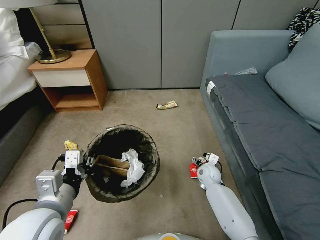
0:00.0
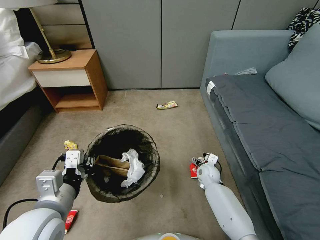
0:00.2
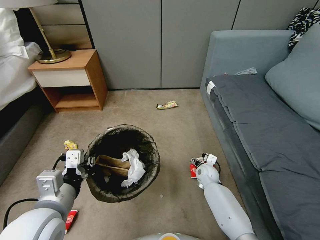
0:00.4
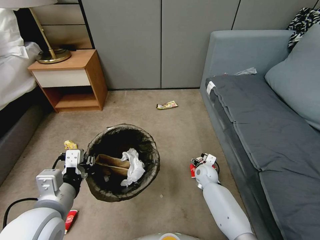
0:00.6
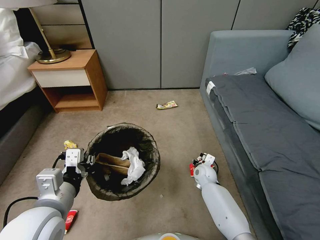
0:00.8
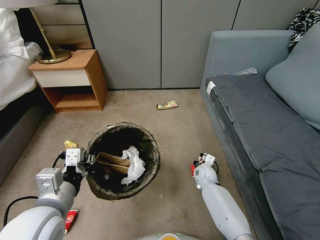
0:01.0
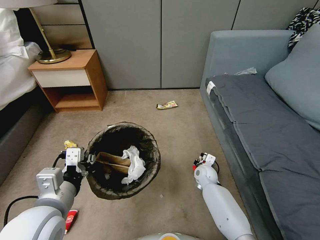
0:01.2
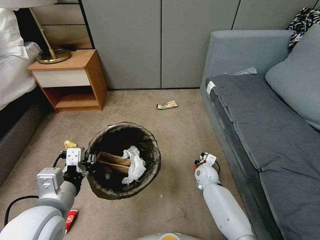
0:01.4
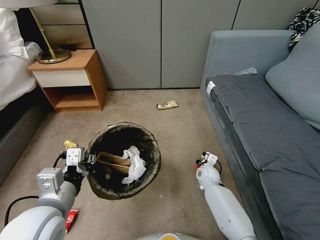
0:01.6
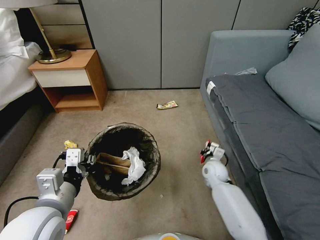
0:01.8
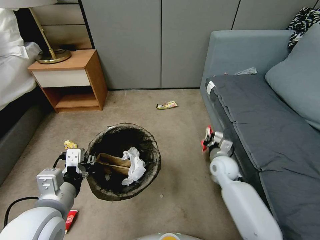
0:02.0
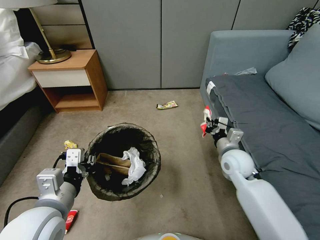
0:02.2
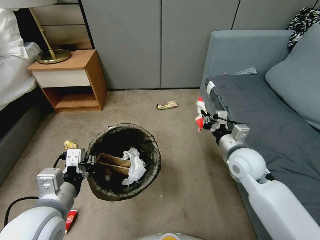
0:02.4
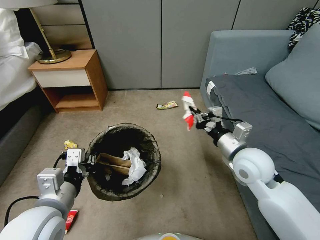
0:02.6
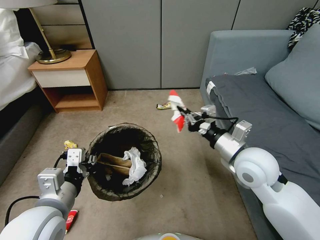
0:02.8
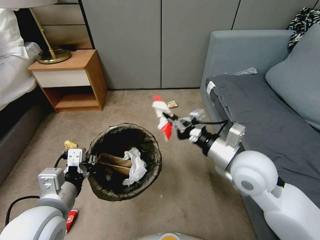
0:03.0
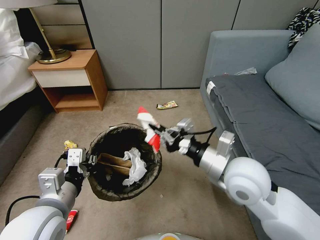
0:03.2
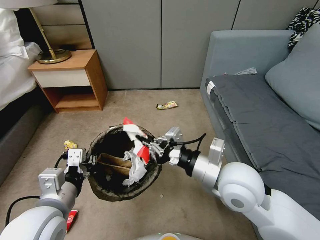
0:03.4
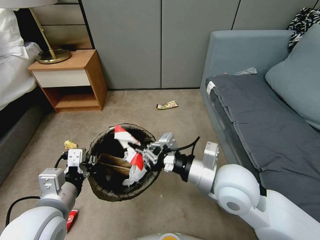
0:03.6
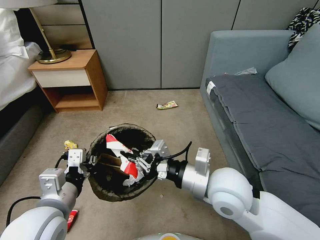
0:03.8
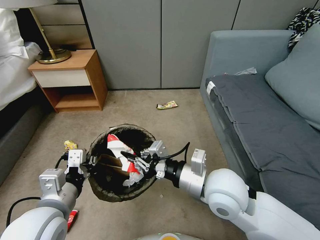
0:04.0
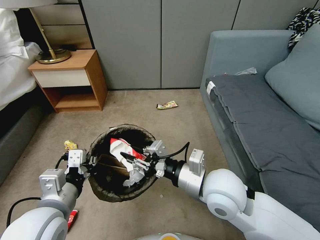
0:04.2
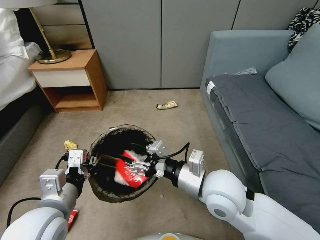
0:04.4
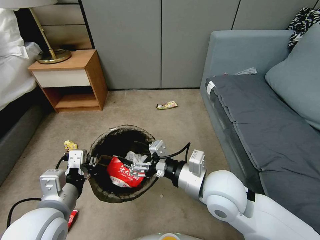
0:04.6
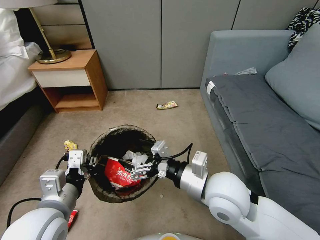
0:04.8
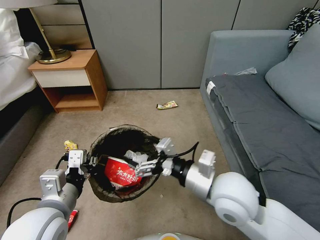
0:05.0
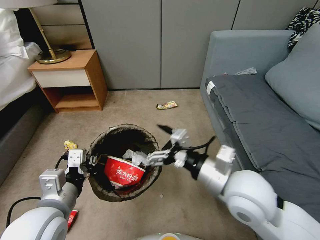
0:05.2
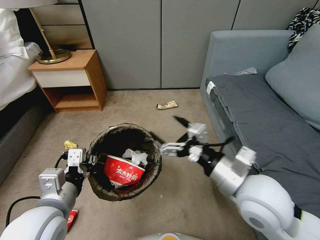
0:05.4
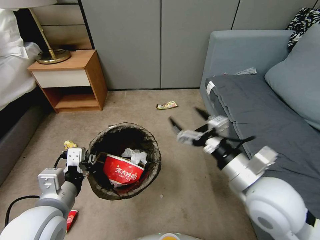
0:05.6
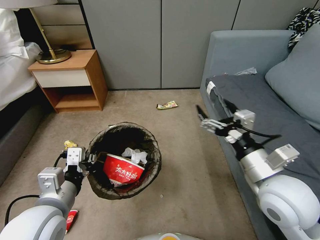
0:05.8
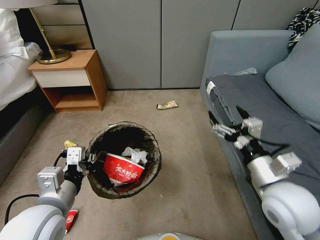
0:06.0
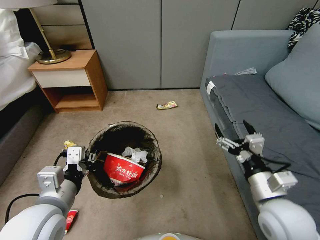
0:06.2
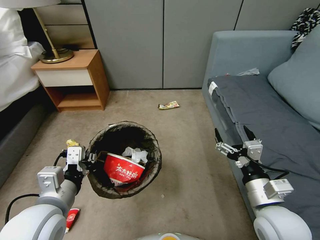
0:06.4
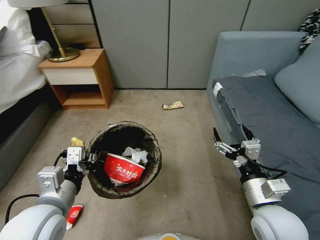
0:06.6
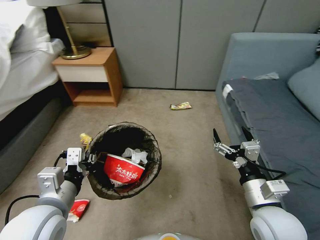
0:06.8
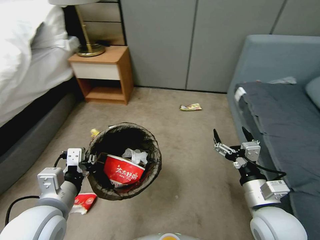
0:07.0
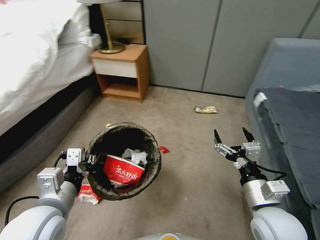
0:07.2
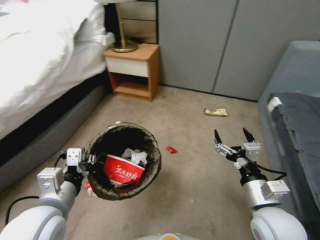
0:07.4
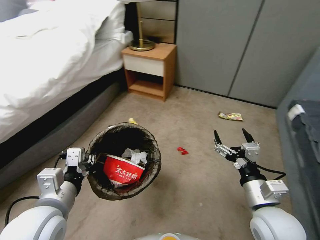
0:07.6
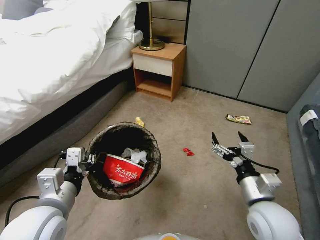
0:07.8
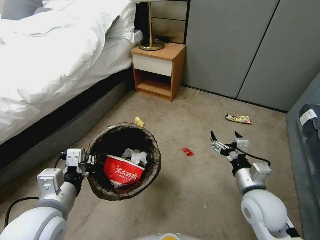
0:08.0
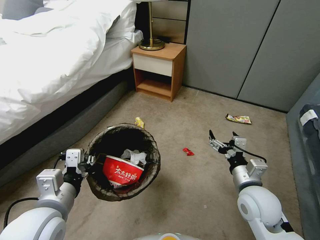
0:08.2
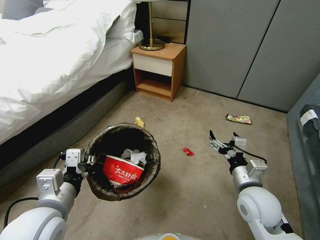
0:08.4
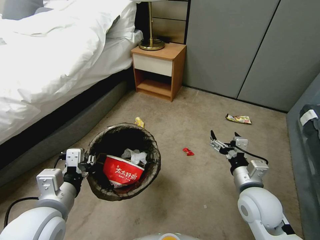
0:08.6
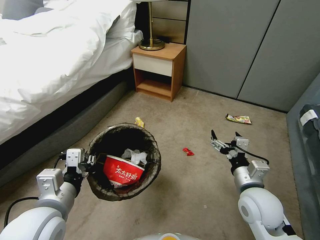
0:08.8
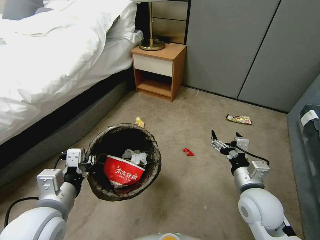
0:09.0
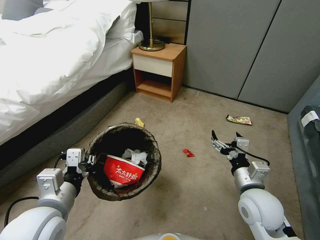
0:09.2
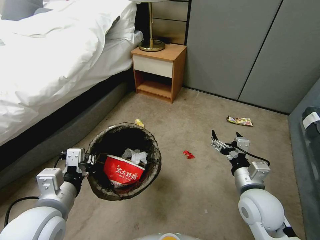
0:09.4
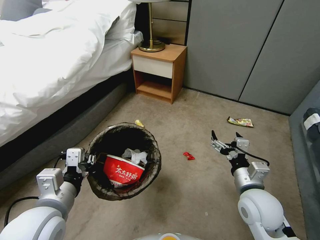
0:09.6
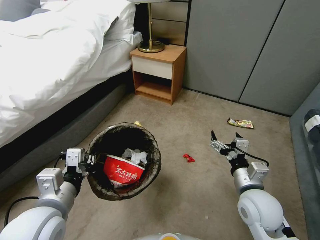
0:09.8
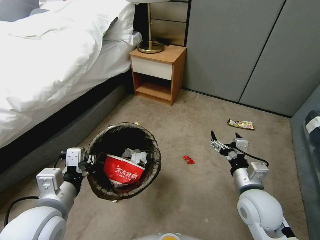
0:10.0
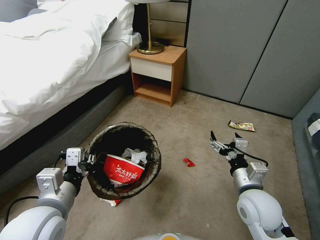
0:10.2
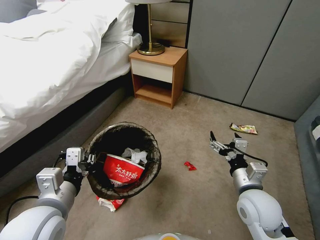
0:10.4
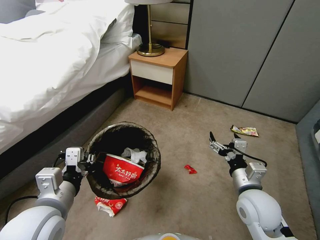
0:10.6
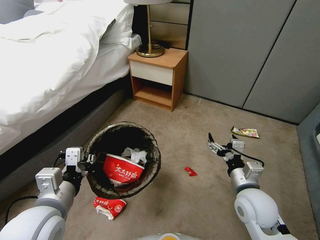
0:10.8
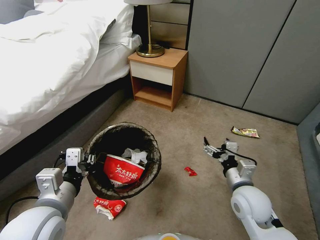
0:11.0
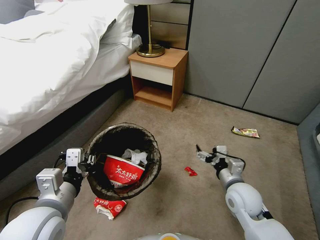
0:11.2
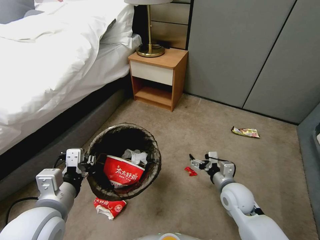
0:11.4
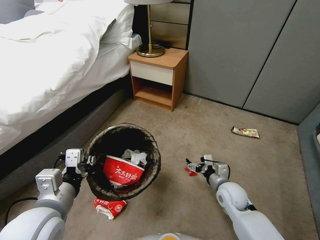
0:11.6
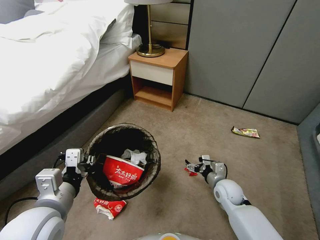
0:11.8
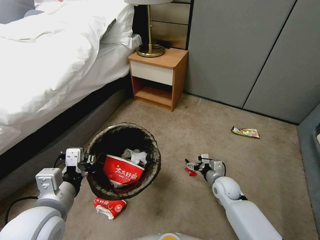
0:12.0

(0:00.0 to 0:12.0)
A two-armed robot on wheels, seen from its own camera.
Task of the whole recording: Pick up the trash bin, then pick up the garbage from the floor and place it into the trash bin.
0:00.0 - 0:01.6: The right gripper closes.
0:01.6 - 0:03.0: The right gripper moves upward, roughly 30 cm.
0:03.0 - 0:04.4: The right gripper heads to the left, covering some 5 cm, and opens its fingers.
0:04.4 - 0:06.0: The right gripper moves to the right, approximately 15 cm, and opens.
0:06.0 - 0:07.6: The right gripper shifts roughly 5 cm downward.
0:07.6 - 0:09.0: The right gripper goes about 5 cm forward.
0:09.0 - 0:10.4: Neither gripper changes place.
0:10.4 - 0:12.0: The right gripper heads downward and forward, covering approximately 20 cm.

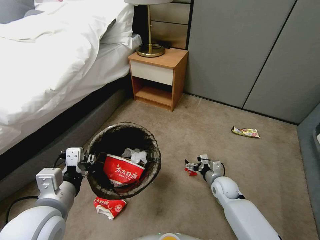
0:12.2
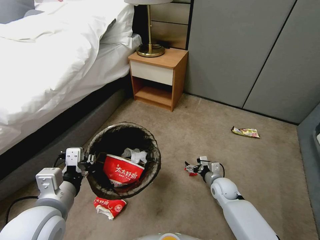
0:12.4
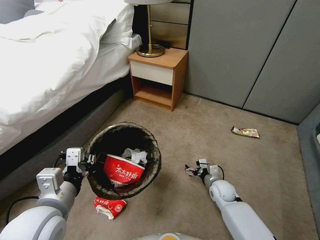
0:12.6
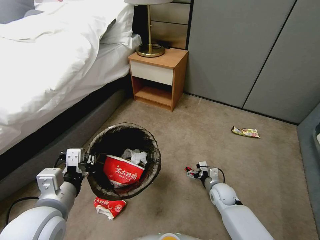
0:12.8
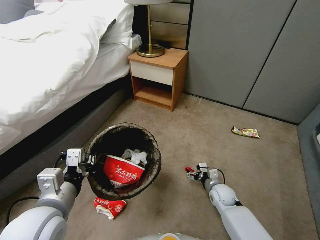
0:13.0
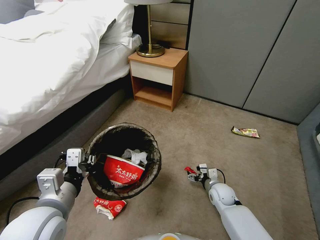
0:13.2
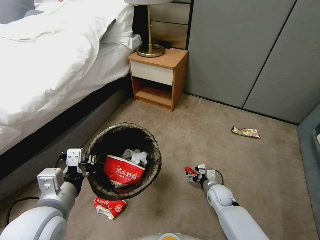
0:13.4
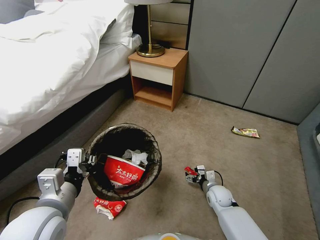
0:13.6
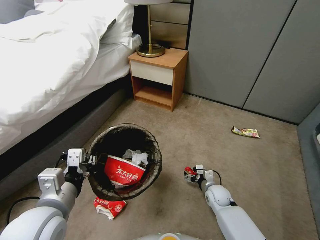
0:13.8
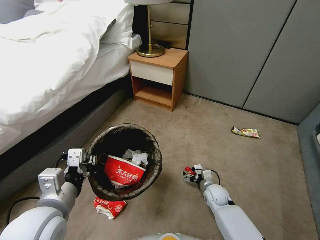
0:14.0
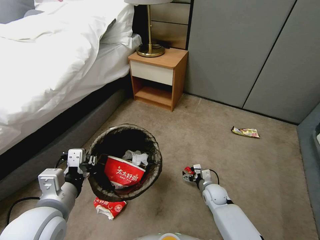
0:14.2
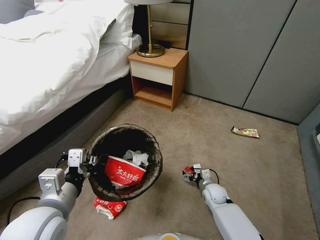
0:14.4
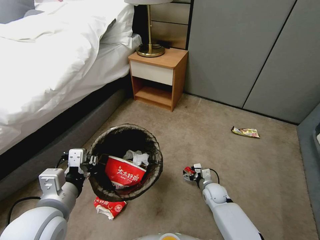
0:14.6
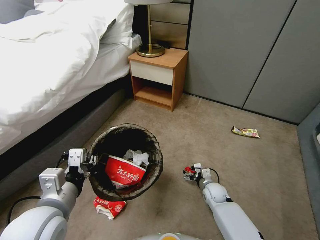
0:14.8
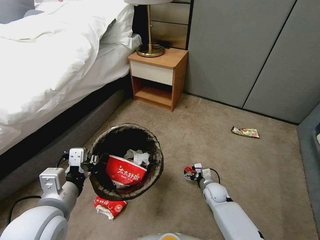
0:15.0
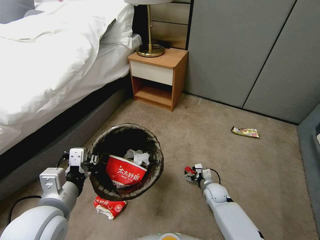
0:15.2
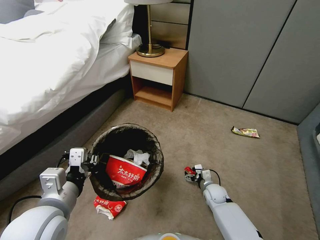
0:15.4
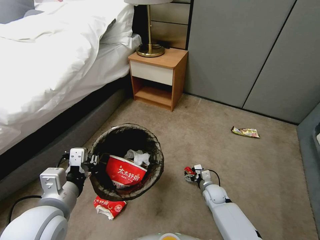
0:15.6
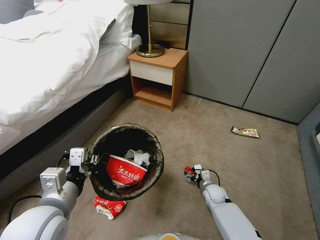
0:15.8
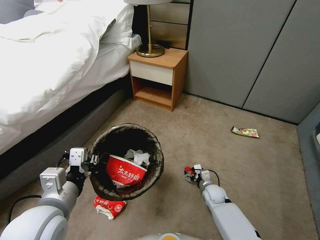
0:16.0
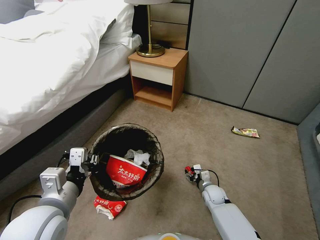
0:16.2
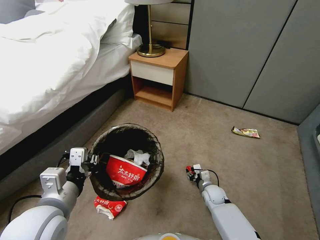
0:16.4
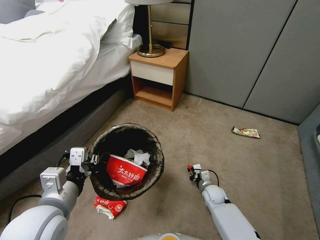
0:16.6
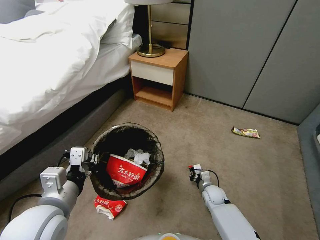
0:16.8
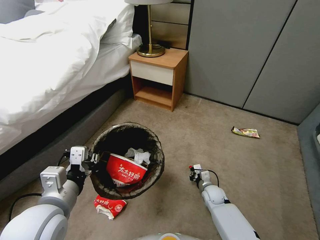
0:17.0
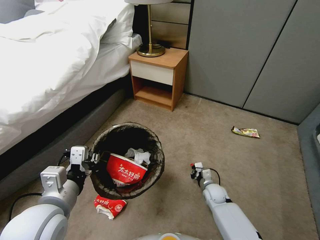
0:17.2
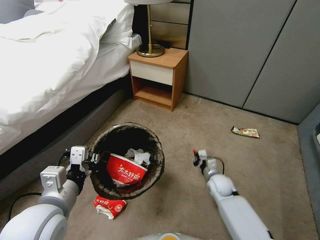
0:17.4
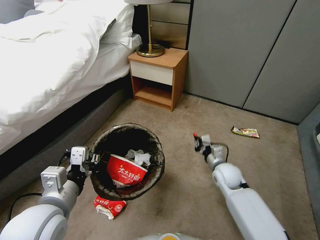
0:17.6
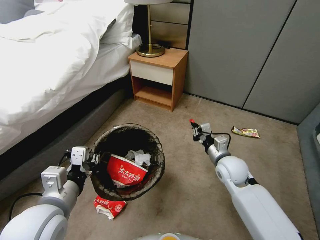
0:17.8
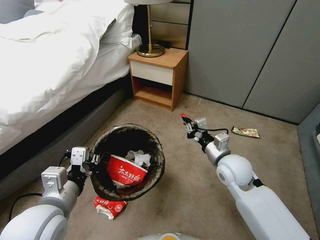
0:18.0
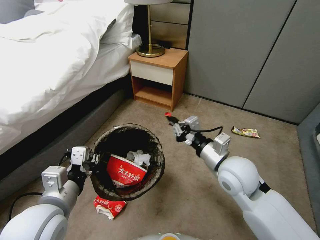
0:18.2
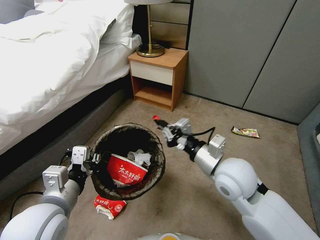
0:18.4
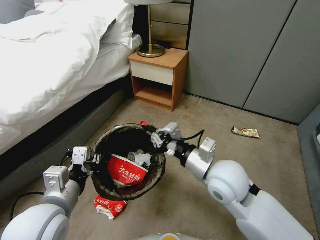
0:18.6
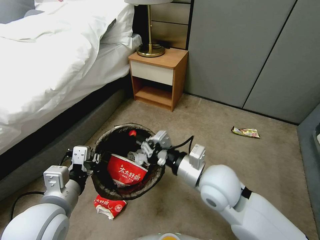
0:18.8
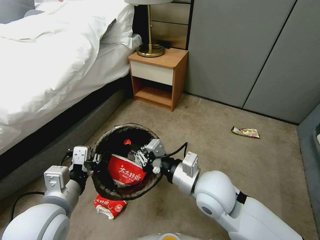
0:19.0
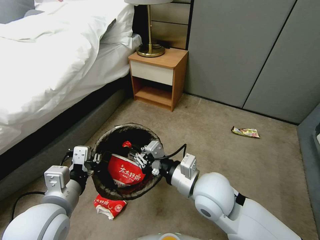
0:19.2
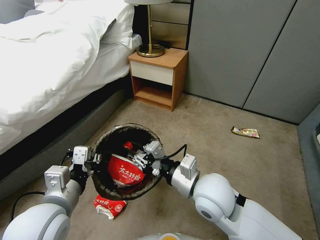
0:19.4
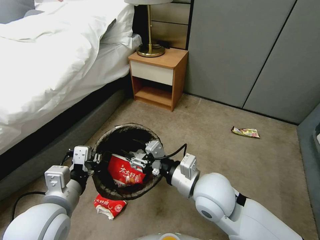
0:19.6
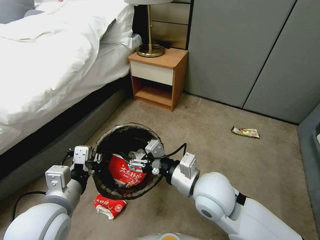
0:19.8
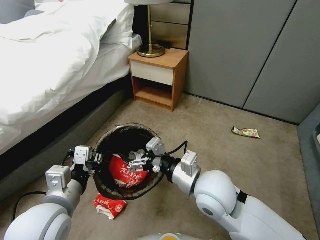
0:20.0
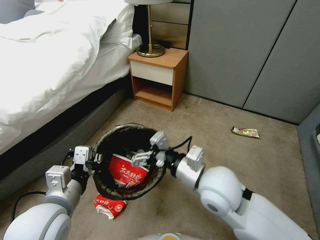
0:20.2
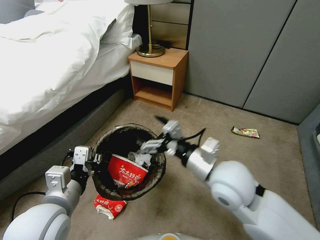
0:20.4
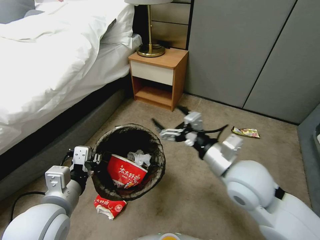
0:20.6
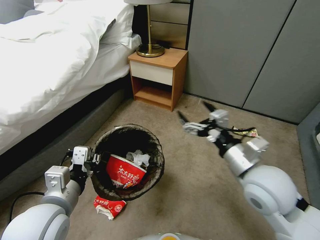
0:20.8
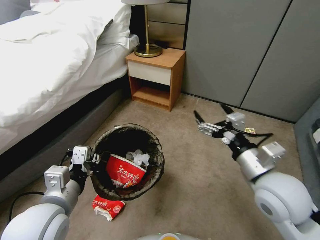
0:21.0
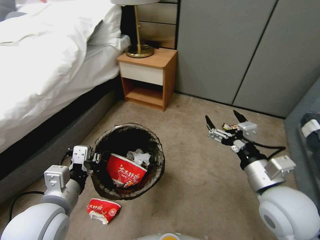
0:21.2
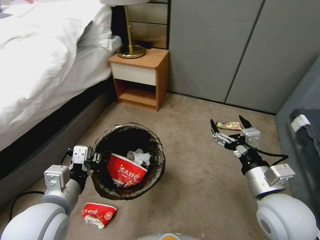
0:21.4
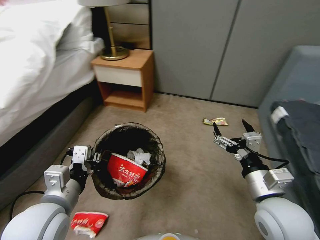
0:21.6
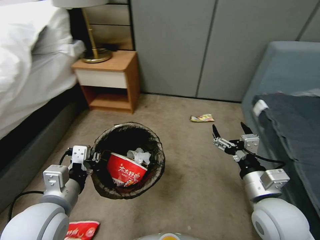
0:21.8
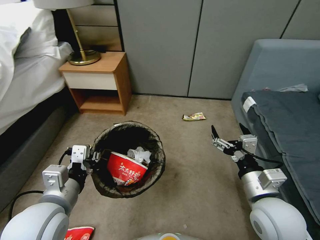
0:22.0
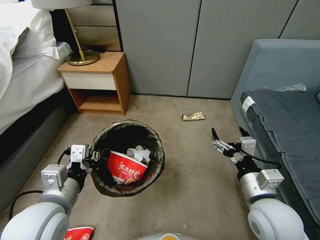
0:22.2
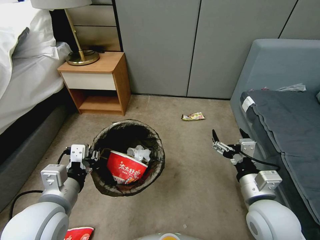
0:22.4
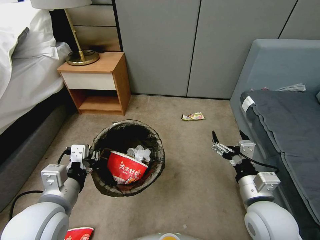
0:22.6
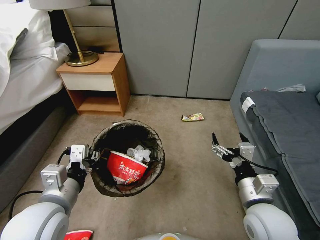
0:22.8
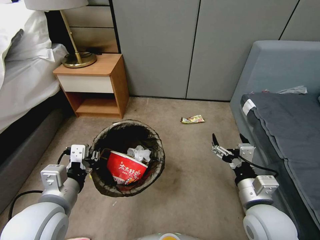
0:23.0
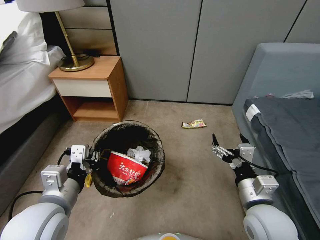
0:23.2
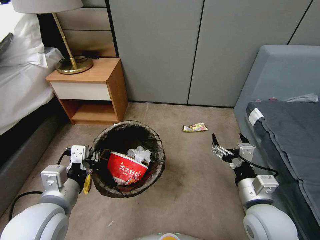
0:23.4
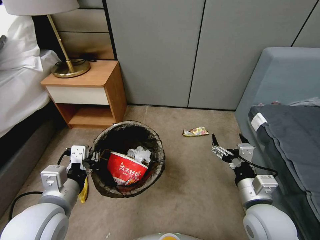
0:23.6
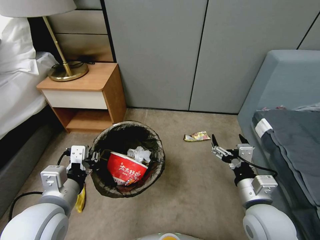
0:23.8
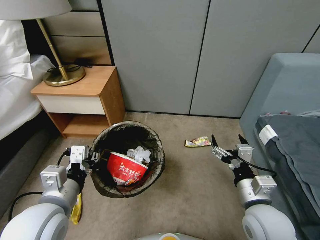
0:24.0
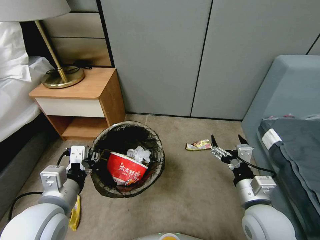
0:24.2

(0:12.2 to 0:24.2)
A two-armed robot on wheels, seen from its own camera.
Task of the whole recording: Pick up the trash bin, then pick up the garbage from the floor and place it into the trash bin.
0:12.2 - 0:13.8: The right gripper shifts by approximately 5 cm.
0:13.8 - 0:15.2: The grippers make only small movements.
0:15.2 - 0:16.6: The right gripper closes its fingers.
0:16.6 - 0:18.2: The right gripper is displaced upward by about 35 cm.
0:18.2 - 0:19.8: The right gripper is displaced to the left by approximately 10 cm, and opens up.
0:19.8 - 0:21.2: The right gripper is displaced to the right by some 15 cm.
0:21.2 - 0:22.6: The right gripper shifts approximately 5 cm downward.
